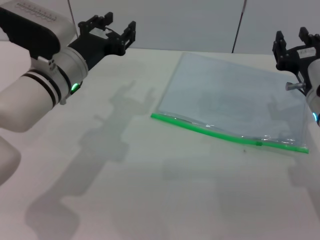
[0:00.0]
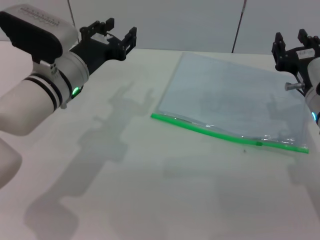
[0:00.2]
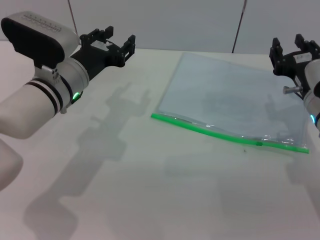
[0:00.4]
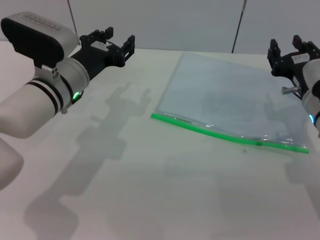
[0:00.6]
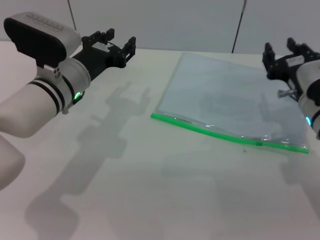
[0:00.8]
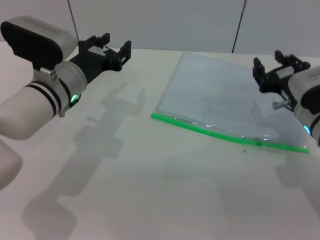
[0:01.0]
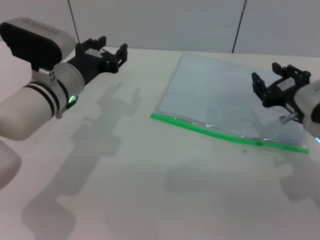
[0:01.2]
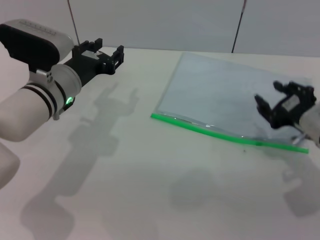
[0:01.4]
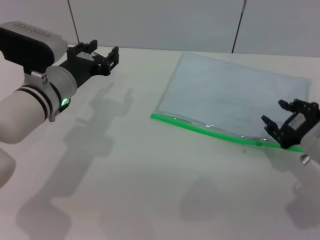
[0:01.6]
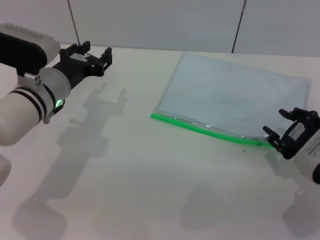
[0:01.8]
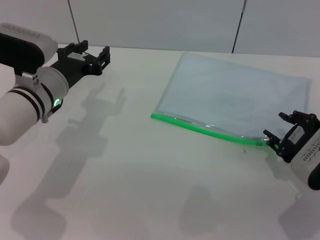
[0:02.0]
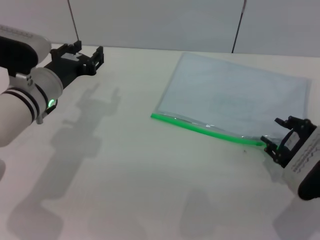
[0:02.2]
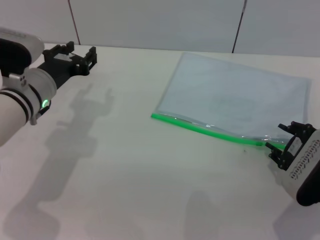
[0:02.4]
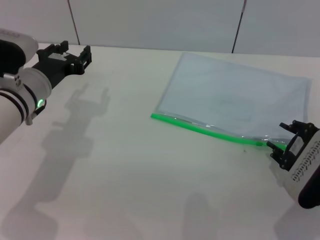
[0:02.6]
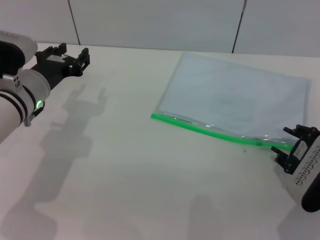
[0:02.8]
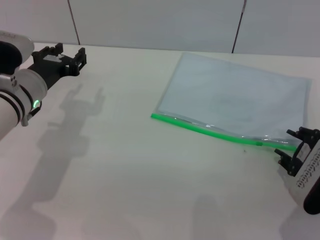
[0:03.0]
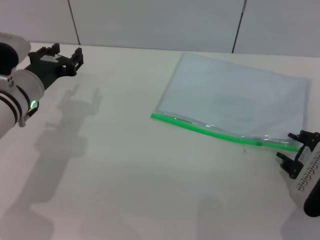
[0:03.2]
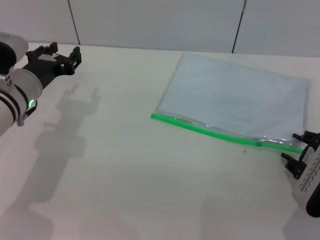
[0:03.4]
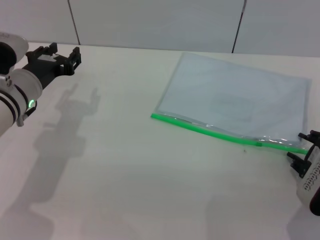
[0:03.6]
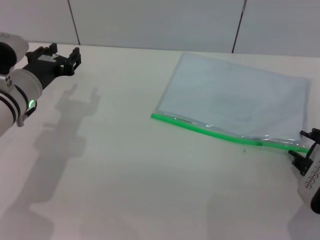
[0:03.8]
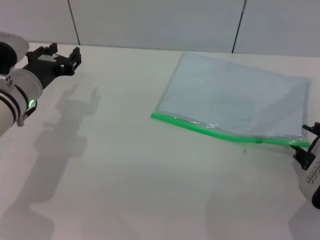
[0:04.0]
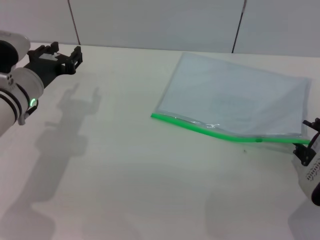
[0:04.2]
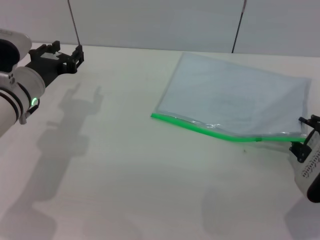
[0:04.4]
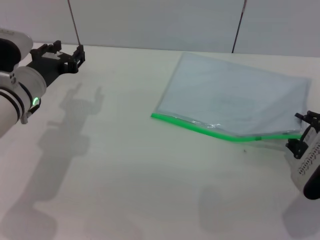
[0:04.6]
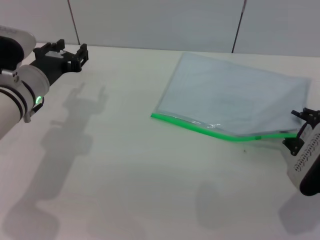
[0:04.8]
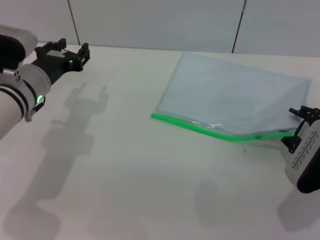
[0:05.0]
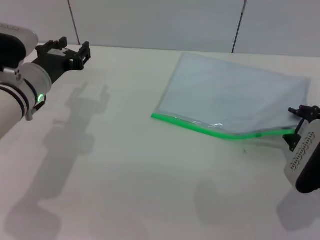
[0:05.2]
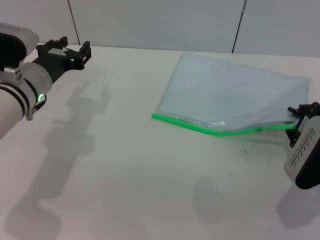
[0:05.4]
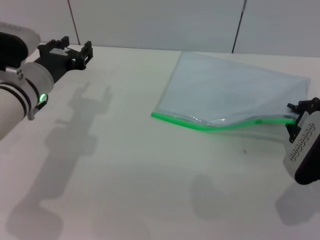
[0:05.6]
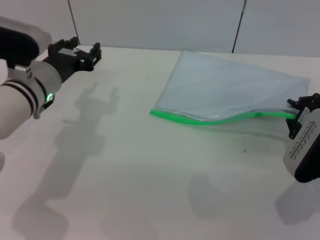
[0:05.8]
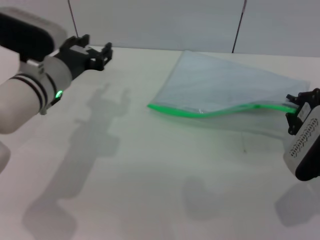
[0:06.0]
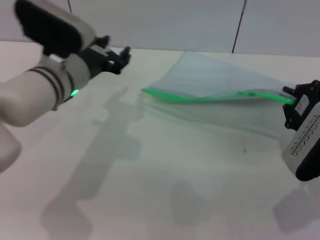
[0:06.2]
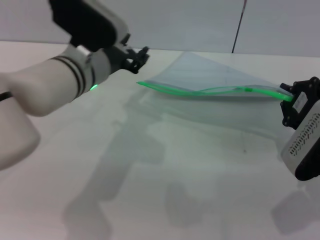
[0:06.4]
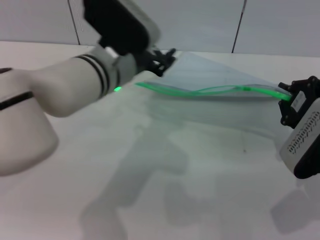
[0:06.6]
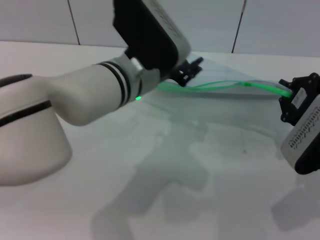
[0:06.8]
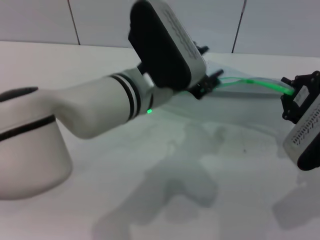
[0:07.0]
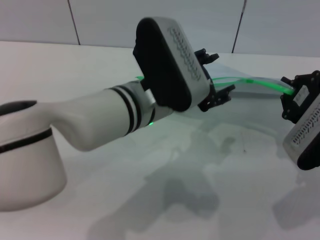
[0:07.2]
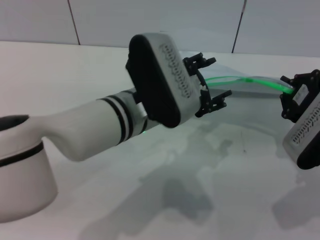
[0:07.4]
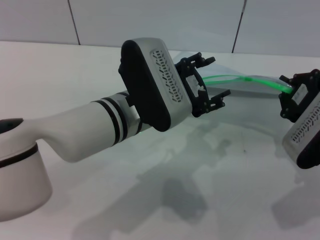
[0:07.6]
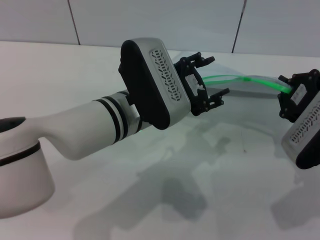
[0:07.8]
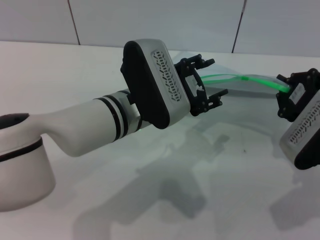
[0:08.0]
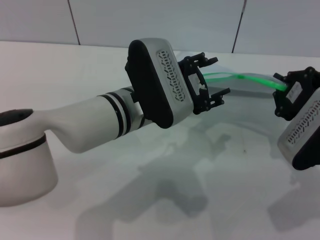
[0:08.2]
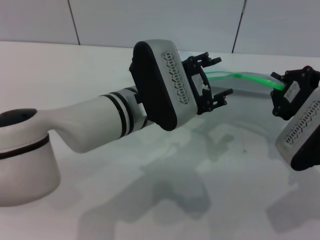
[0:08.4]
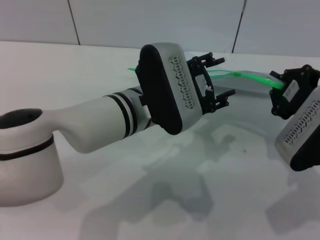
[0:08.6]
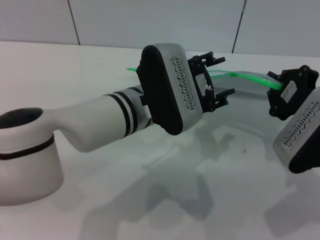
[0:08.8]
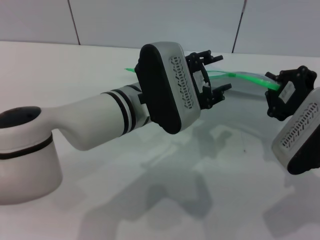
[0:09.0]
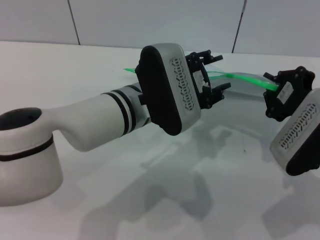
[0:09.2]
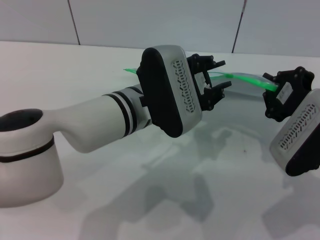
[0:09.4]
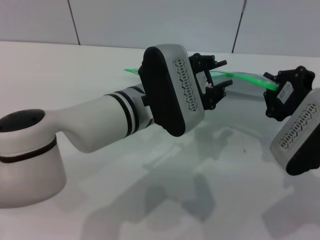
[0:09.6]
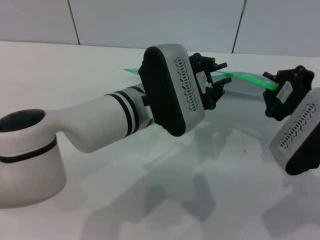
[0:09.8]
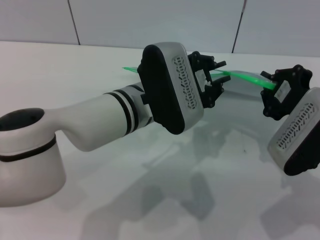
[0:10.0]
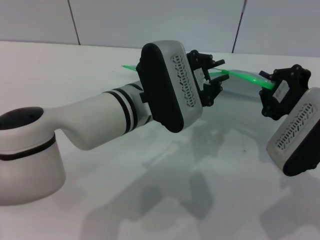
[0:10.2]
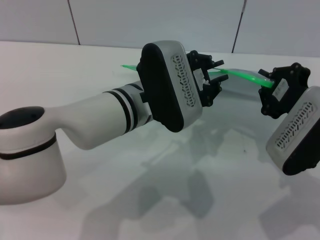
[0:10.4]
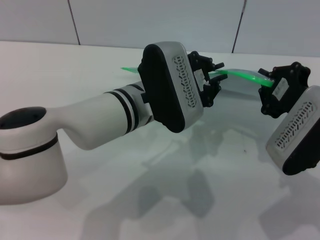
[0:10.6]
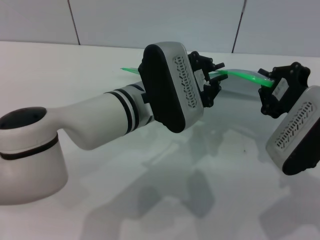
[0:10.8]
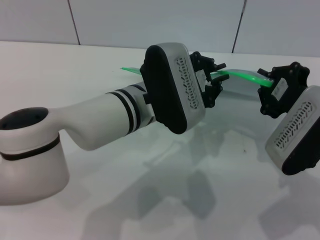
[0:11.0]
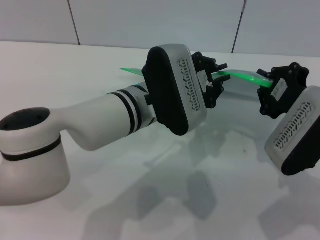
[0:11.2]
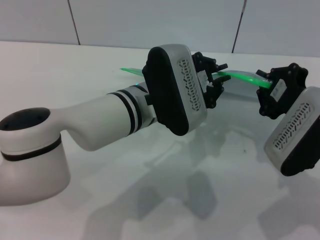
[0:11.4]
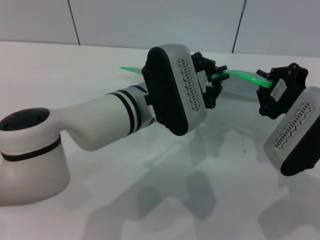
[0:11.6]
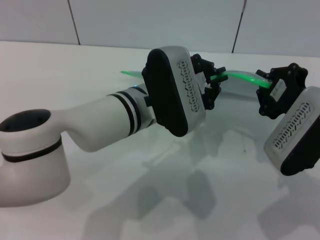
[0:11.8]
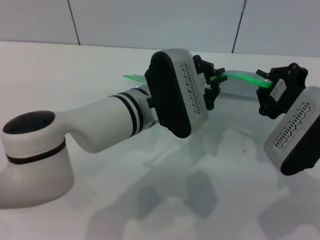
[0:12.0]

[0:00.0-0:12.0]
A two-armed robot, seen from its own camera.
Step, 0:00.0 to 0:06.0: Pick up the transparent plastic bag with the left gripper.
0:00.0 to 0:01.6: The right gripper goes roughly 5 cm backward.
0:03.0 to 0:04.4: There are only small adjustments of the grippers.
0:04.4 to 0:06.0: The right gripper closes.
0:06.0 to 0:07.6: The left gripper shifts some 15 cm to the right and backward.
0:07.6 to 0:09.0: The grippers make only small movements.
0:09.0 to 0:10.4: The left gripper closes its fingers.
0:10.4 to 0:12.0: The two grippers keep their place.

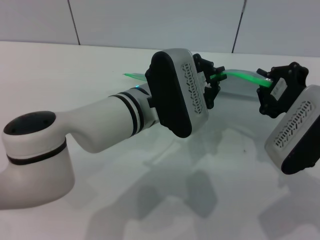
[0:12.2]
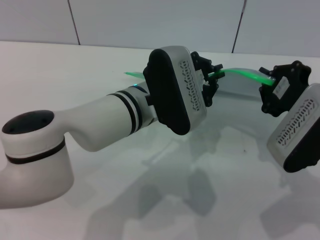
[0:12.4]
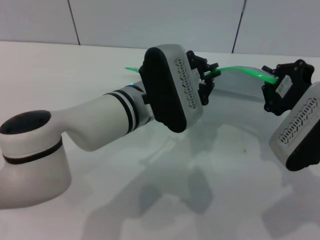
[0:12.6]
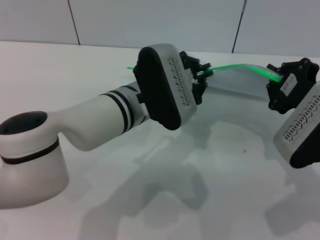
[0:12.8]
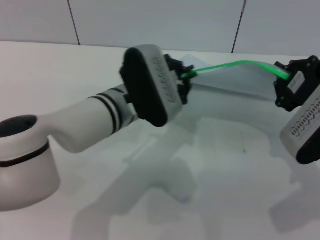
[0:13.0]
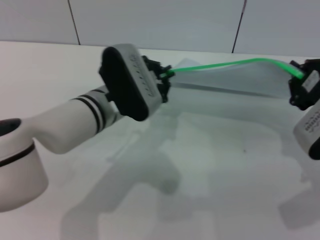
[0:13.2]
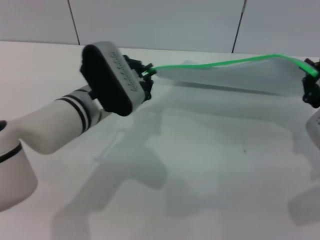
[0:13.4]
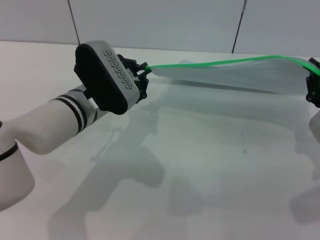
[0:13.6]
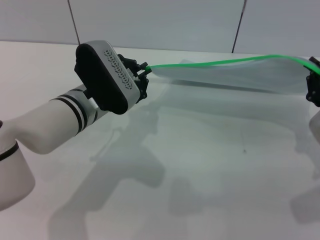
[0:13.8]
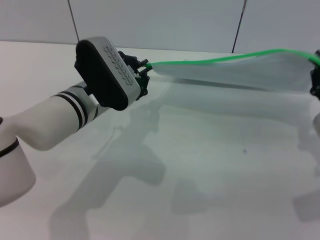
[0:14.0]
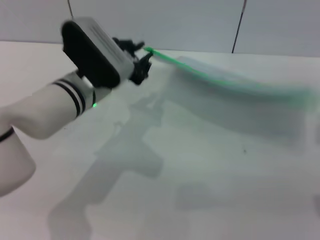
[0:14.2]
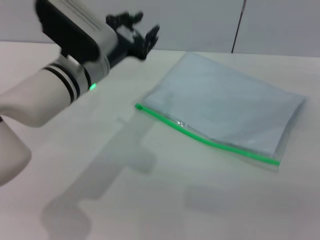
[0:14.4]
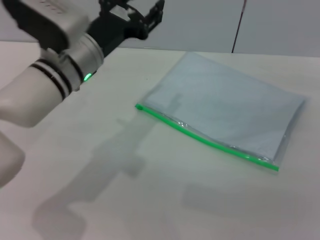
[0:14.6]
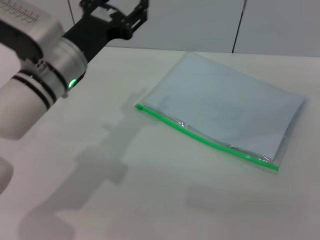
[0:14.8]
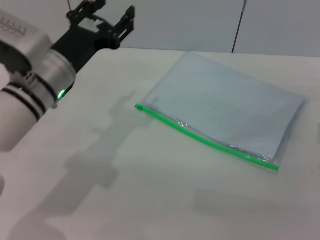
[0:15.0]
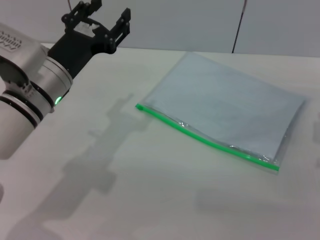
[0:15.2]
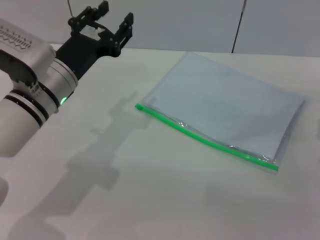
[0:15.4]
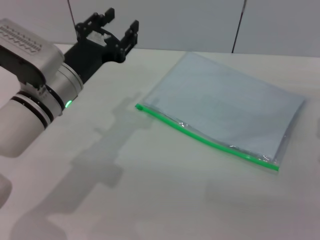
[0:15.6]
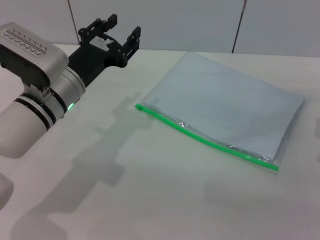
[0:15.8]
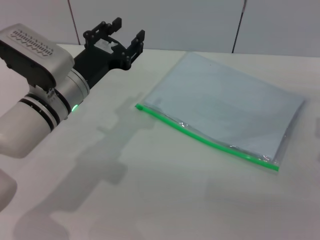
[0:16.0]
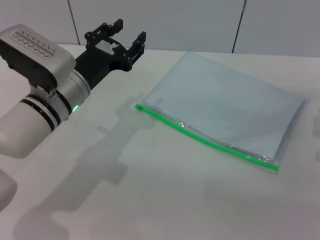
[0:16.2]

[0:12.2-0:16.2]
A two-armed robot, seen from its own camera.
Step, 0:14.4 to 0:15.8: Place the transparent plastic bag.
0:12.2 to 0:13.6: The left gripper shifts roughly 10 cm to the left, while the right gripper shifts approximately 5 cm to the right.
0:13.6 to 0:14.8: The left gripper moves some 5 cm, and opens up. Meanwhile the right gripper opens.
0:14.8 to 0:16.2: The grippers make only small movements.
